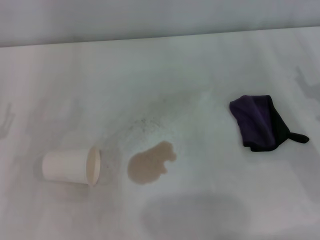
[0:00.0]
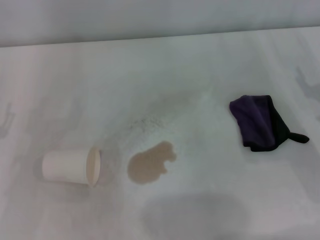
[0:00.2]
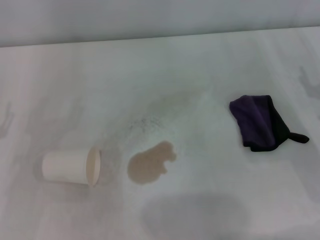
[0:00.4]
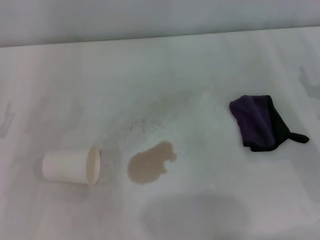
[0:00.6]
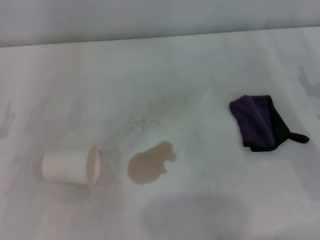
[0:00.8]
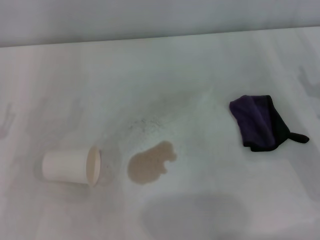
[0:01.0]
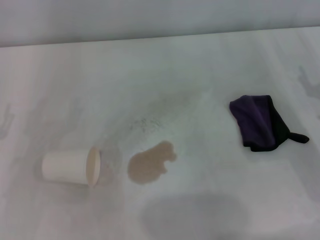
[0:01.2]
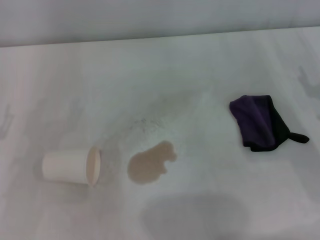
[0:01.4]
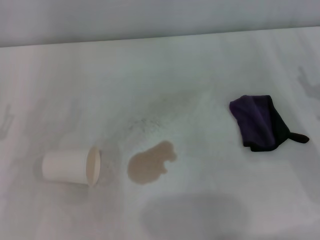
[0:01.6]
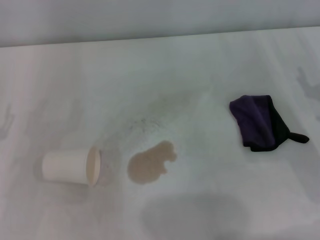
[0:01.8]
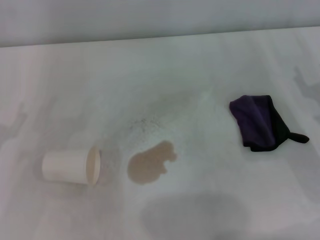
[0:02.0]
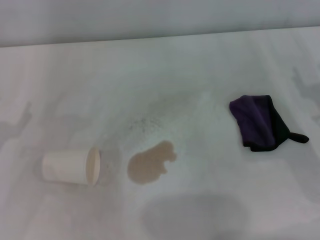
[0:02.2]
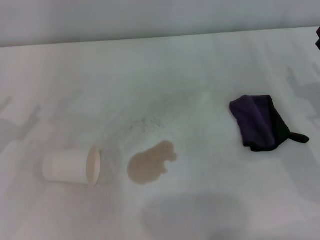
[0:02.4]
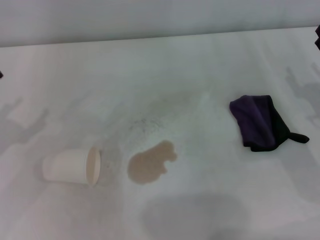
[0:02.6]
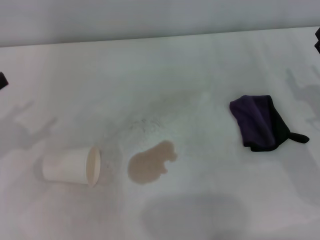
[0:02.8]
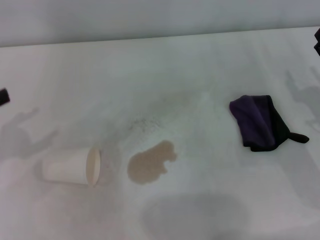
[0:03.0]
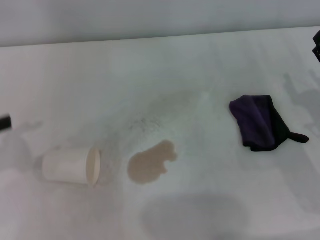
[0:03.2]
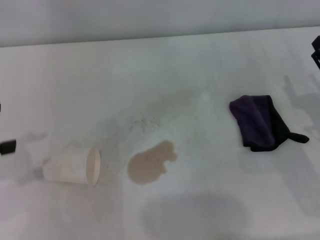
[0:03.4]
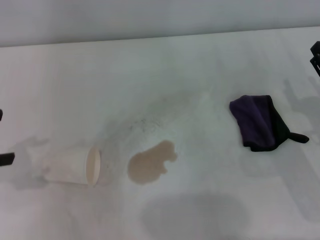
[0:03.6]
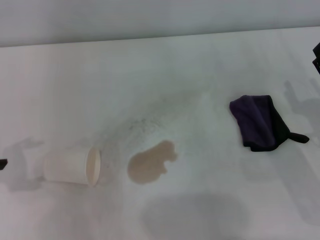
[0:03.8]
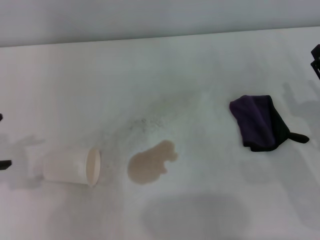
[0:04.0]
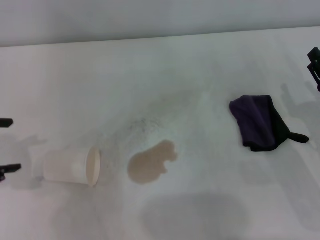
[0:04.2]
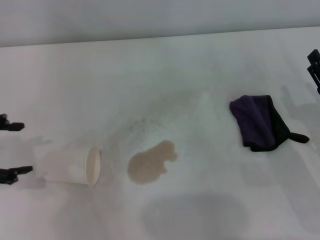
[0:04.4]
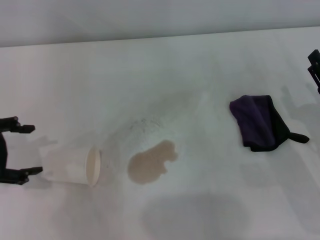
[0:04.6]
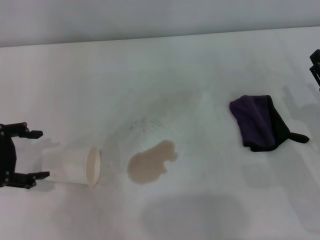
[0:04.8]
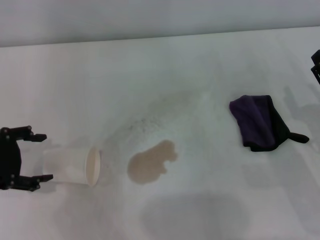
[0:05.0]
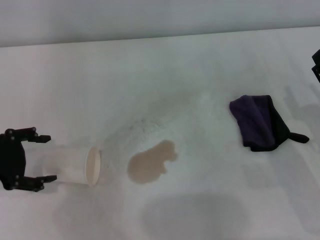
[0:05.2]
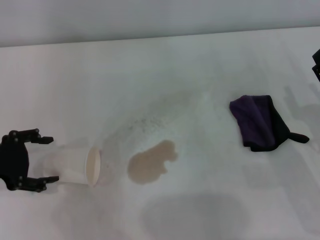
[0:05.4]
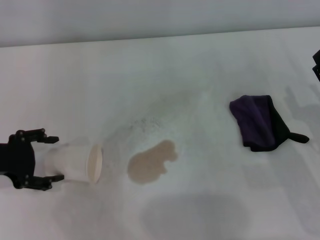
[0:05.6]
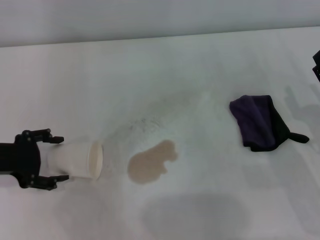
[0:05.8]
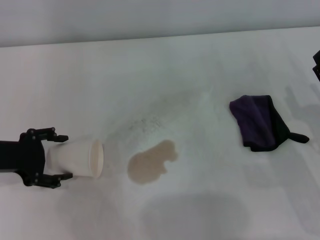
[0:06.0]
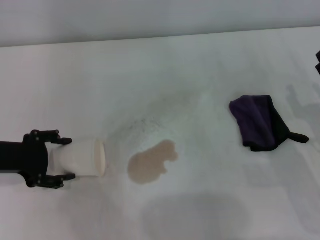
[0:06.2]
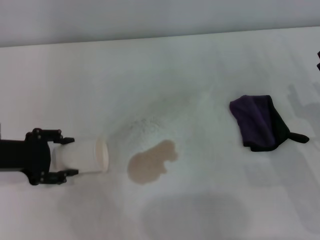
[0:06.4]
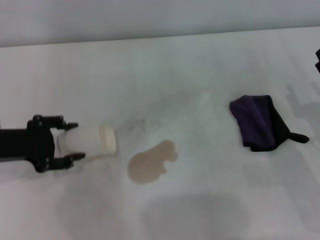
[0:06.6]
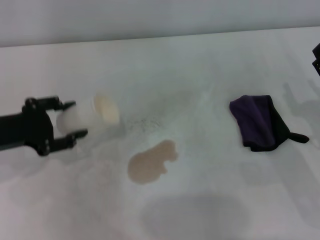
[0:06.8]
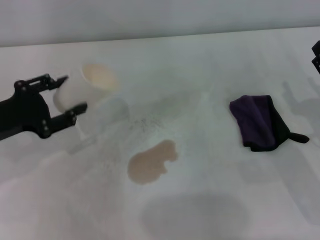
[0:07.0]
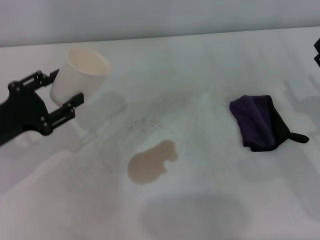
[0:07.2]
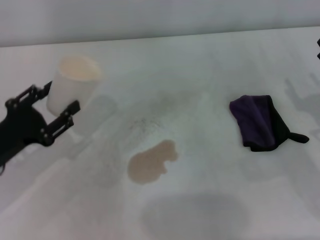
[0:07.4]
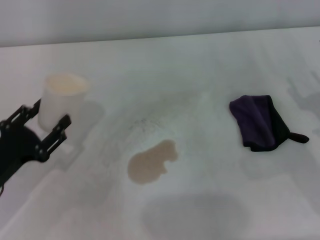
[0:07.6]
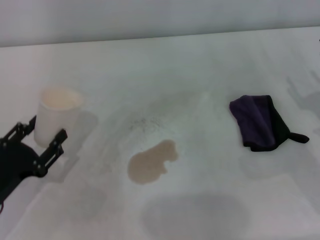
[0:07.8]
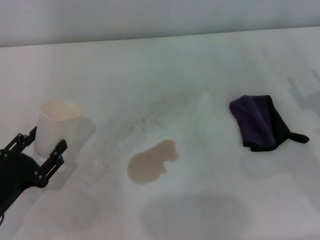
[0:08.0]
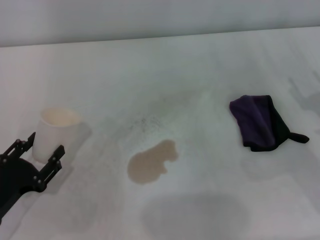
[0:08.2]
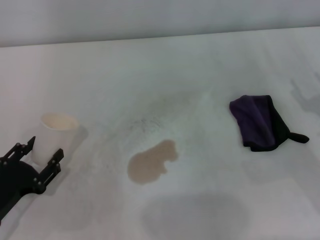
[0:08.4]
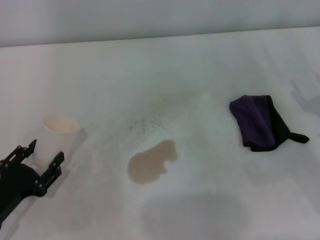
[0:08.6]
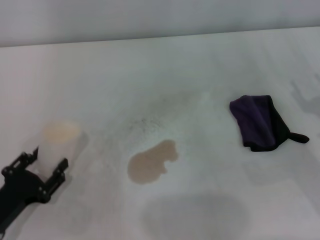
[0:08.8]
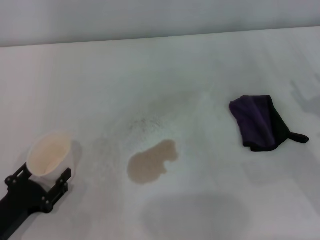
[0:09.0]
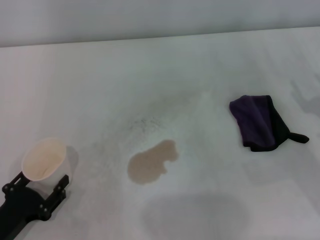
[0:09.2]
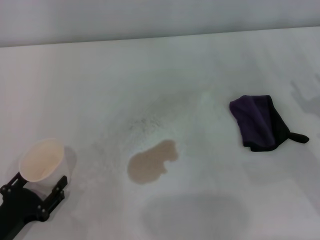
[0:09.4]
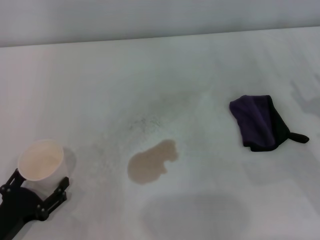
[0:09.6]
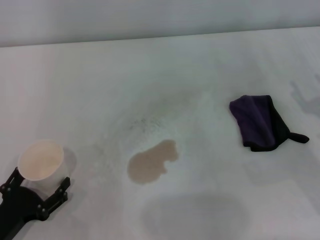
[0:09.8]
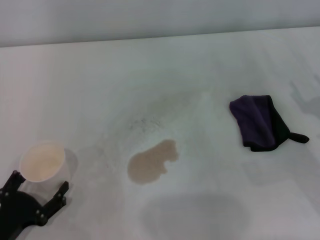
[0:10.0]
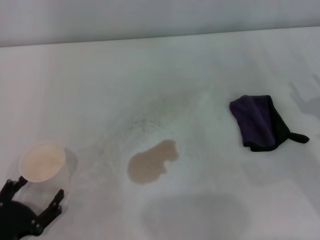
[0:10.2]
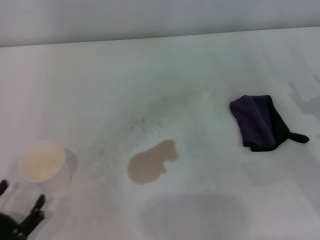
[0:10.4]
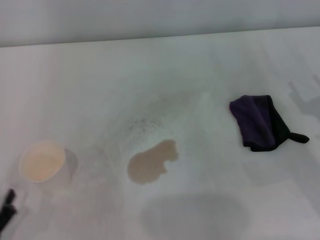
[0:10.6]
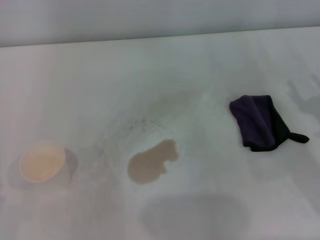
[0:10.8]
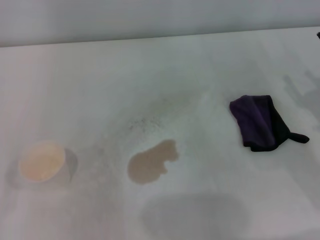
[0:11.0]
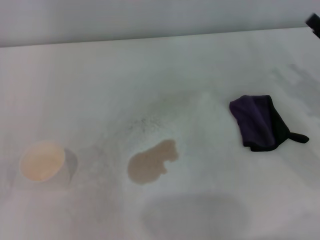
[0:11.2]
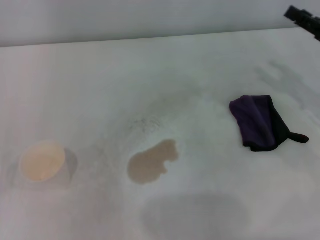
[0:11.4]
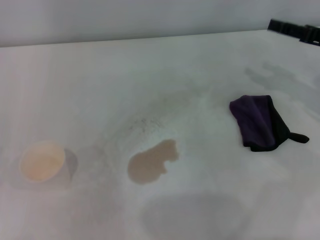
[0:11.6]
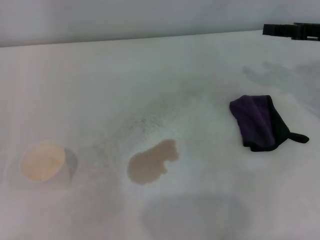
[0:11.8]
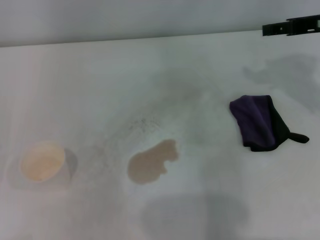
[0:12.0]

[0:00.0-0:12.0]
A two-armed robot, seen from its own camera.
Step, 0:00.0 to 0:06.2: Grasp the paper cup with the left gripper.
Step, 0:06.4 to 0:10.0: Stand the paper cup upright with the left gripper.
0:00.0 to 0:01.6: Both grippers stay put.
0:04.4 to 0:06.0: The left gripper travels downward by roughly 5 cm.
0:06.0 to 0:07.6: The left gripper goes roughly 10 cm backward and downward, and closes its fingers.
0:07.6 to 0:09.0: The left gripper is displaced backward by approximately 5 cm.
0:09.0 to 0:10.4: The left gripper shifts approximately 5 cm backward, and opens up.
0:10.4 to 0:12.0: The right gripper moves upward and forward, some 20 cm. The left gripper moves to the left, approximately 10 cm.

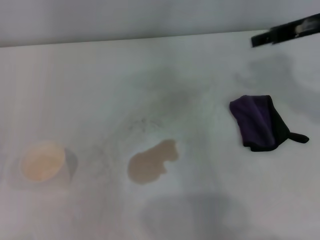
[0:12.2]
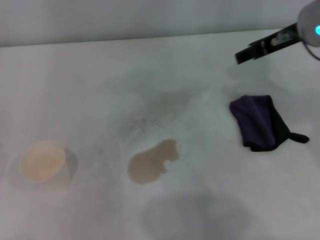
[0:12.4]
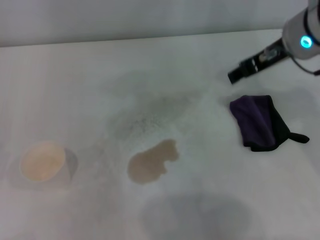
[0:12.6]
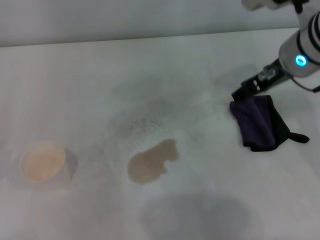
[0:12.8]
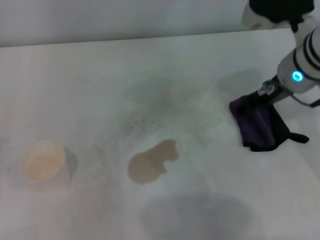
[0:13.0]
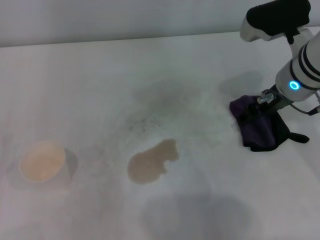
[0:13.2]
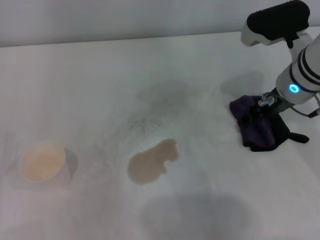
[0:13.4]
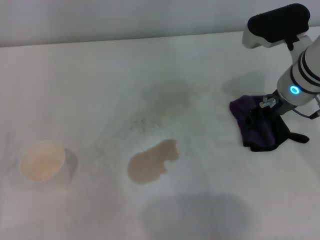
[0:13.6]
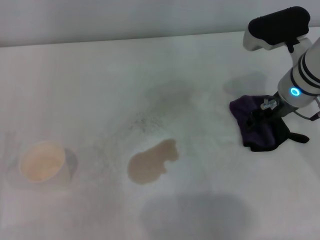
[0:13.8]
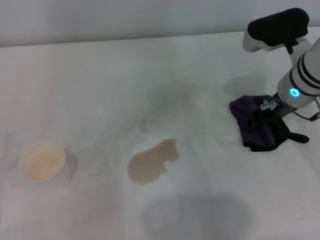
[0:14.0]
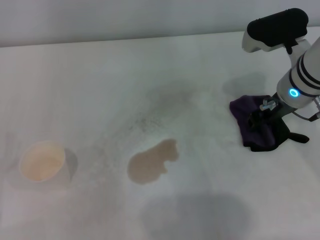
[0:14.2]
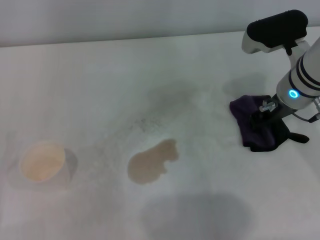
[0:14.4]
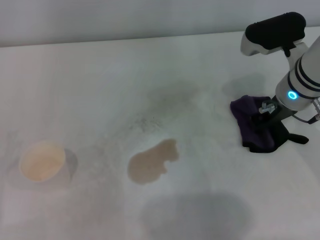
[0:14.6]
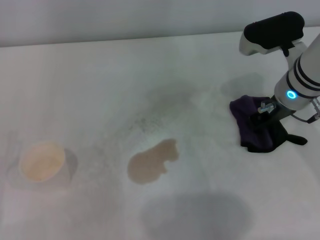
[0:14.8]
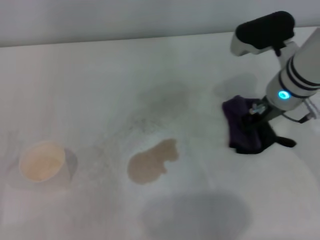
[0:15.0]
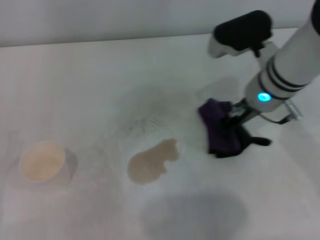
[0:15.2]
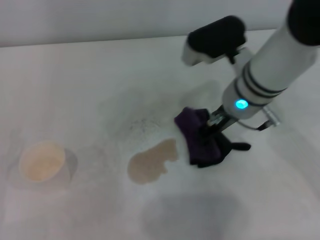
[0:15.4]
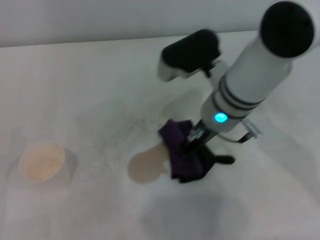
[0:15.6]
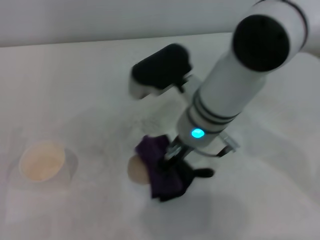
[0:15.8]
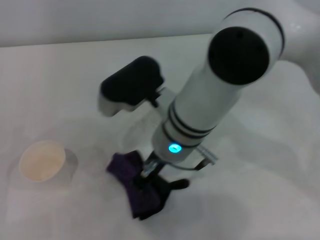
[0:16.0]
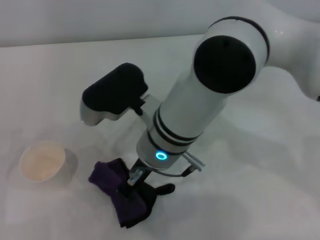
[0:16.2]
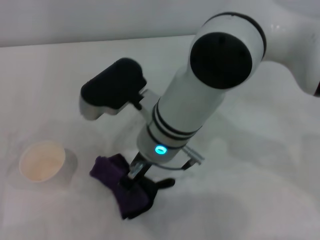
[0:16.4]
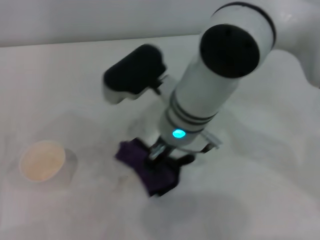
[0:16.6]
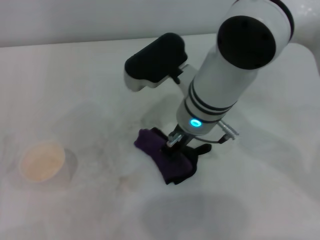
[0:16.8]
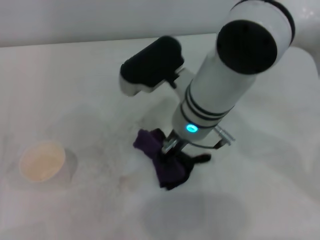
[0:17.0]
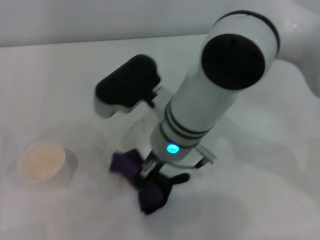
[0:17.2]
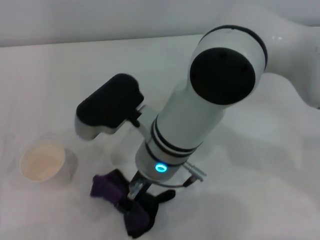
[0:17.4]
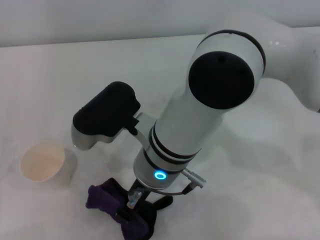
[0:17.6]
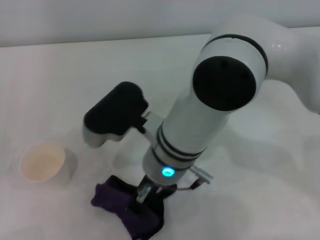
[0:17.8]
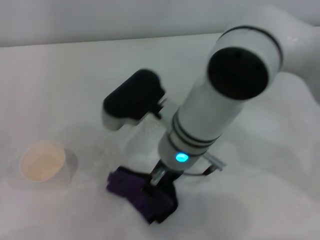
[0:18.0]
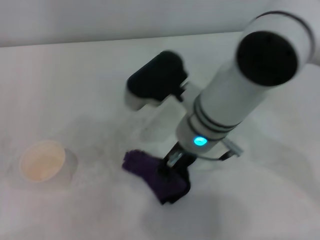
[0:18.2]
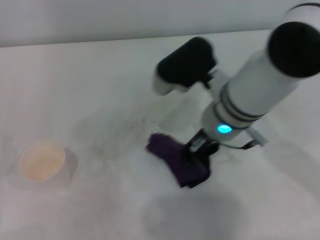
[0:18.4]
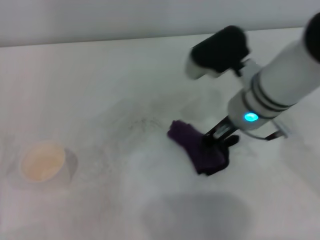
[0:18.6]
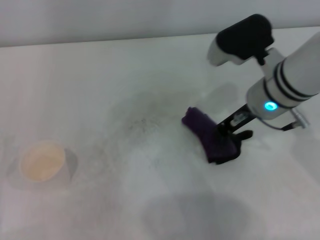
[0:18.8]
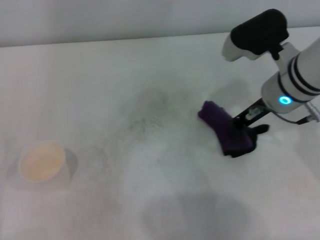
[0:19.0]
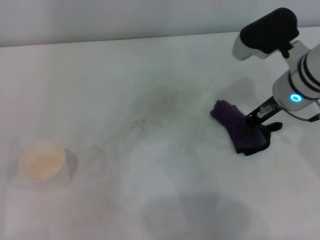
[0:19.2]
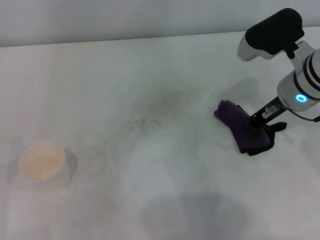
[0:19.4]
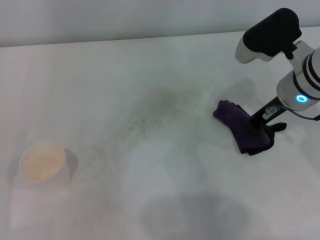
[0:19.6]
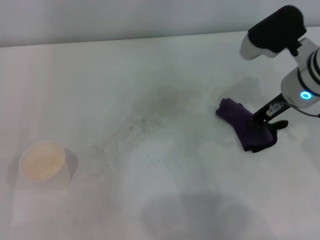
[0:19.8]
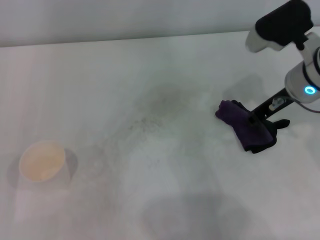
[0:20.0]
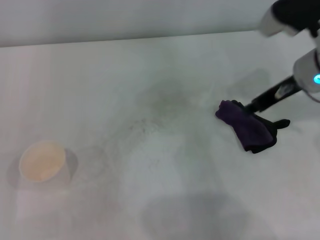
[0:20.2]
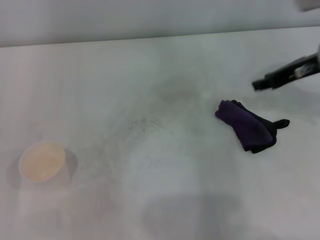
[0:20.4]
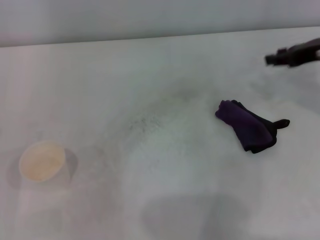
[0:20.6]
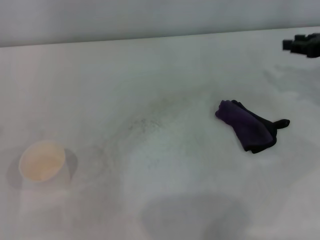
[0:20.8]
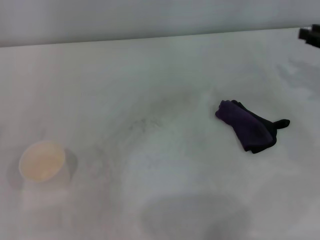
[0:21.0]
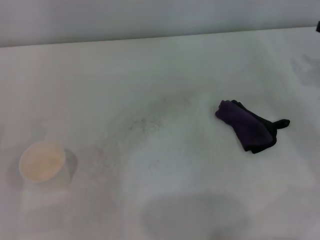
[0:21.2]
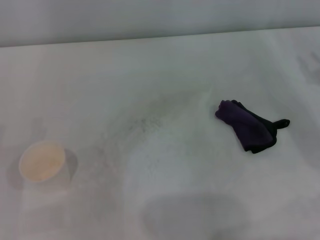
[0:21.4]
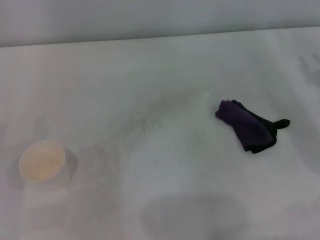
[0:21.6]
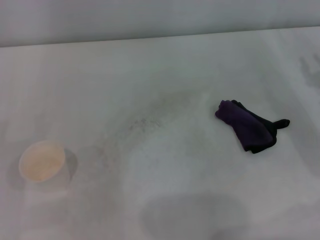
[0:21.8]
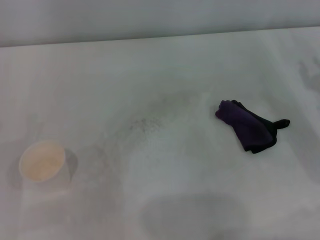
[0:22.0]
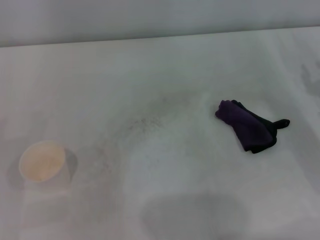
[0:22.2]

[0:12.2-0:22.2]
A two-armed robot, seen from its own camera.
Step, 0:12.2 to 0:14.8: Grasp the rag with the right gripper.
Step, 0:15.0 to 0:19.2: Wipe the stains off the table with the right gripper.
Step, 0:19.4 to 0:20.0: Place the rag on the table with the right gripper.
0:12.2 to 0:13.6: The right gripper shifts about 10 cm downward.
0:13.6 to 0:15.0: The right gripper closes.
0:15.0 to 0:16.4: The right gripper heads to the left, covering approximately 20 cm.
0:18.0 to 0:19.4: The right gripper heads to the right, covering some 20 cm.
0:19.4 to 0:20.8: The right gripper is displaced to the right by roughly 15 cm, and opens its fingers.
0:20.8 to 0:22.2: The right gripper shifts about 10 cm downward and backward.
